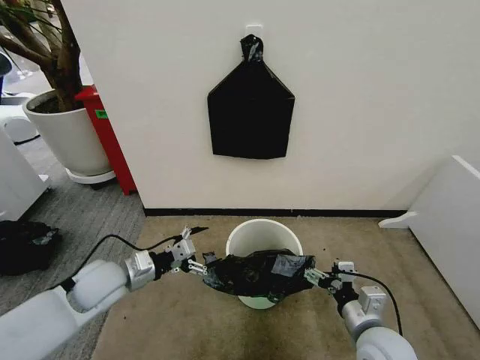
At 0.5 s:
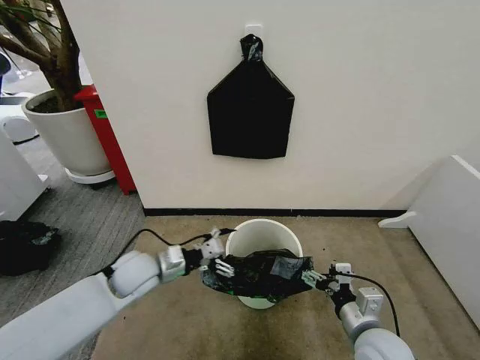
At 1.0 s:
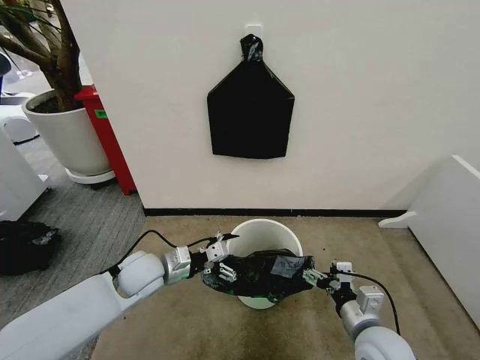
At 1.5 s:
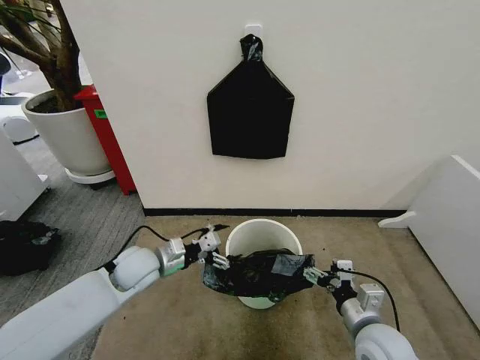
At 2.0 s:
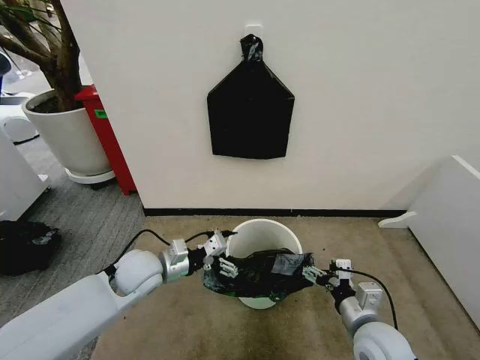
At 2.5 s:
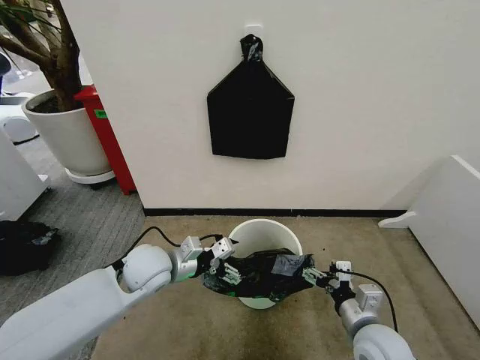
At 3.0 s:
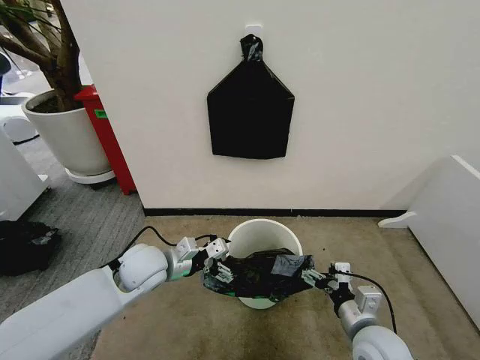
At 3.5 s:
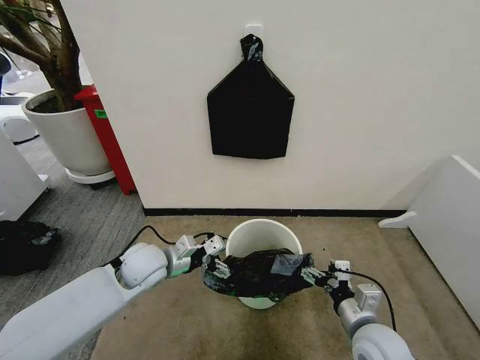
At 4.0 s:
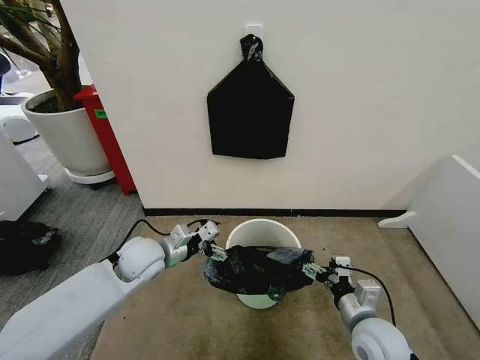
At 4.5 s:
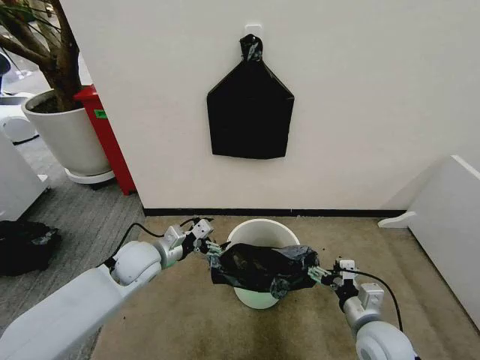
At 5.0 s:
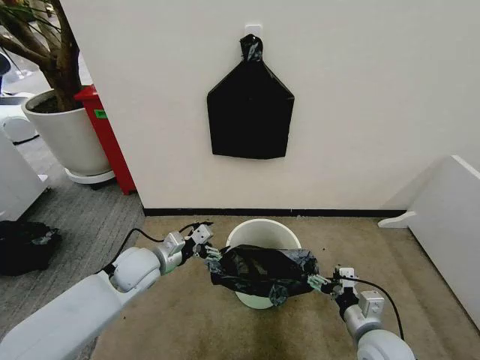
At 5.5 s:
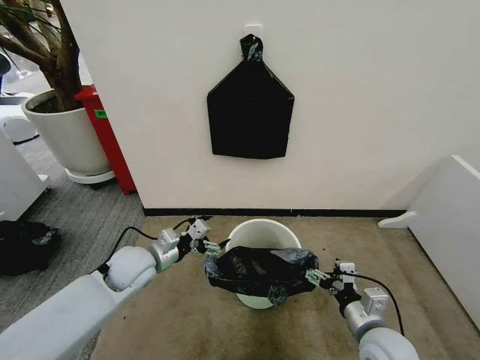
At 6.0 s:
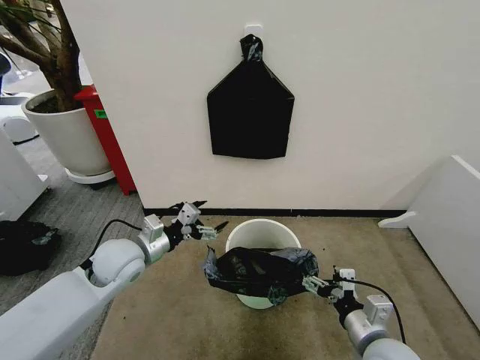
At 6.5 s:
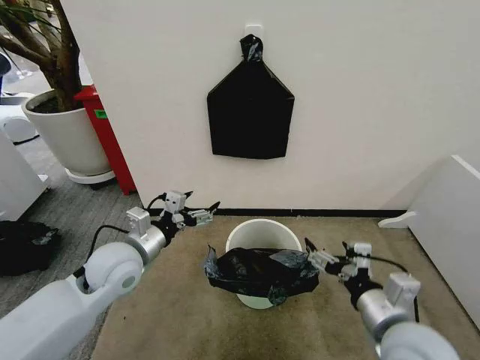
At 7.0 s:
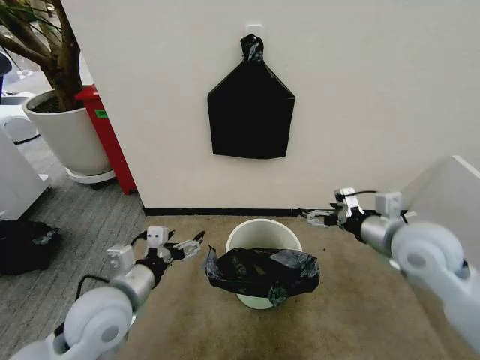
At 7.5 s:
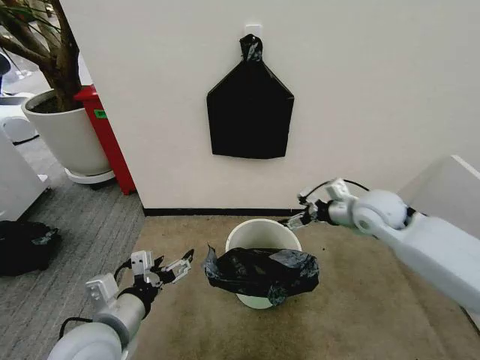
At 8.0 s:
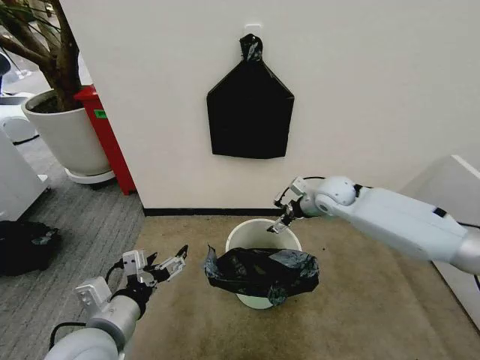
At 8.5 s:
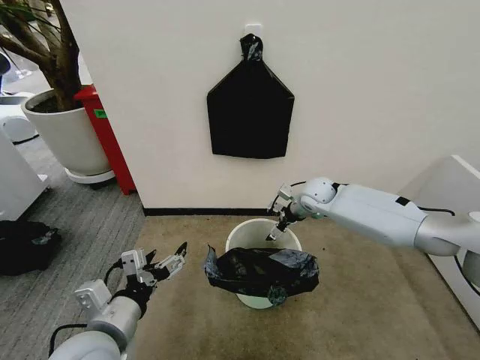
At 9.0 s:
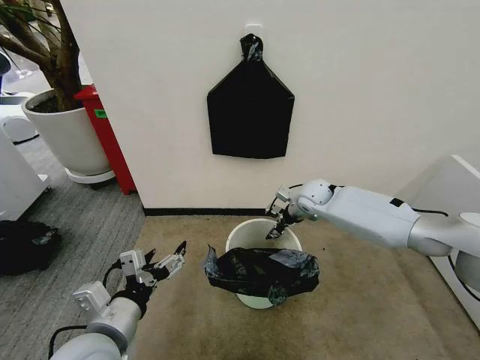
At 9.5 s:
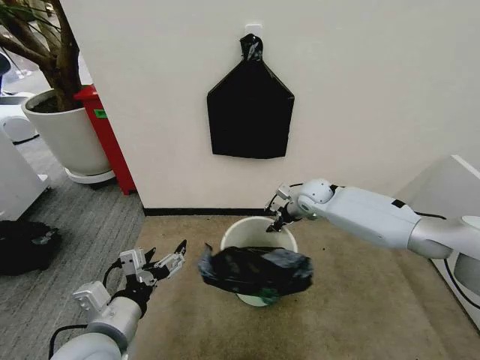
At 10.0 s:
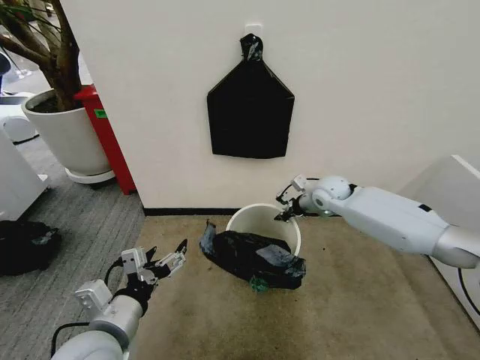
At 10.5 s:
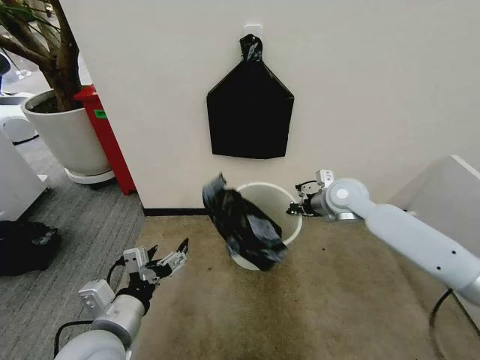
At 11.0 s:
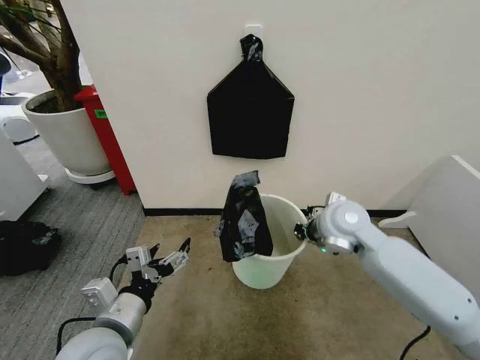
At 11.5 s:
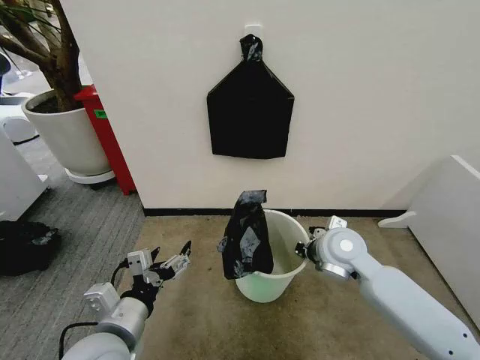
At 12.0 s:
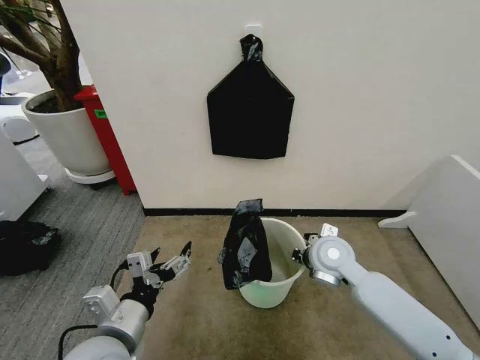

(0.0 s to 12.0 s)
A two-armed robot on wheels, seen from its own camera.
Task of the whole recording: Place the garbage bag over the trash bin.
0.0 s - 2.0 s: The left gripper goes about 5 cm to the right.
2.0 s - 4.0 s: The grippers stay close to where they were, moving slightly.
4.0 s - 6.0 s: The grippers stay close to where they were, moving slightly.
6.0 s - 8.0 s: The right gripper heads forward, covering about 35 cm. Meanwhile the left gripper heads backward, covering approximately 20 cm.
8.0 s - 10.0 s: The right gripper closes its fingers.
10.0 s - 12.0 s: The right gripper heads backward, covering about 20 cm.

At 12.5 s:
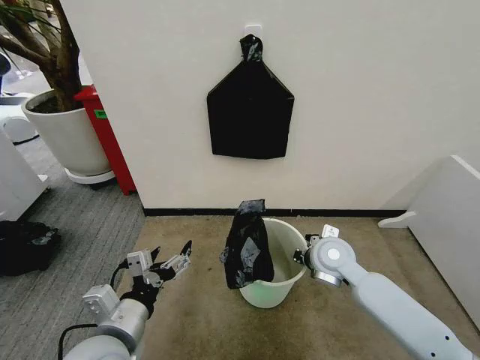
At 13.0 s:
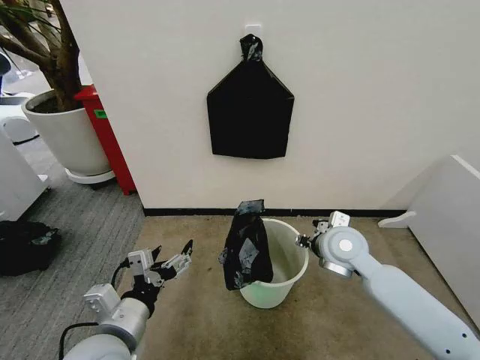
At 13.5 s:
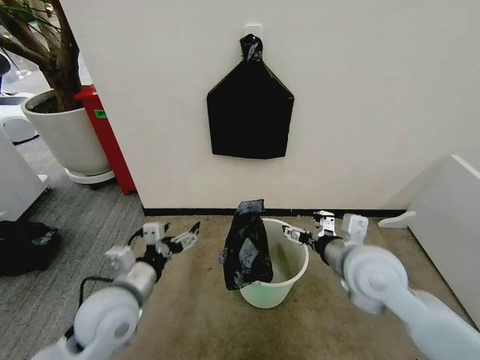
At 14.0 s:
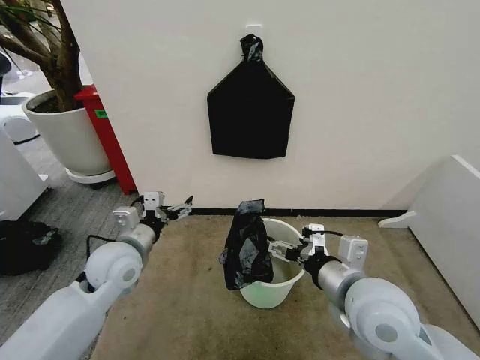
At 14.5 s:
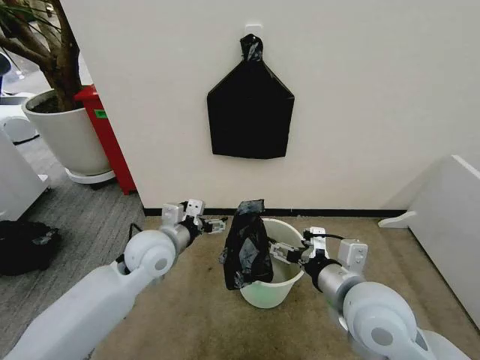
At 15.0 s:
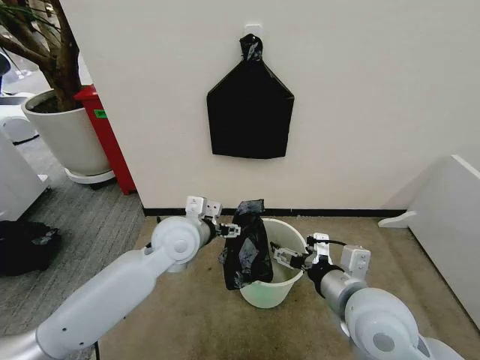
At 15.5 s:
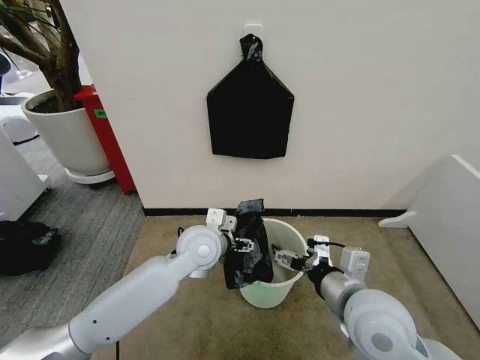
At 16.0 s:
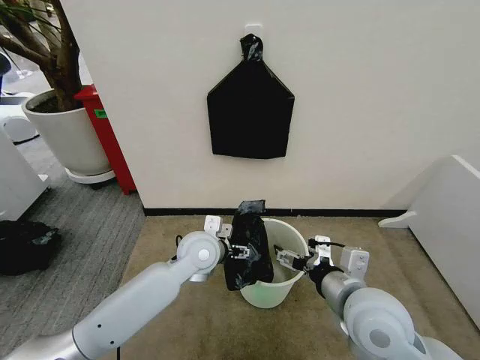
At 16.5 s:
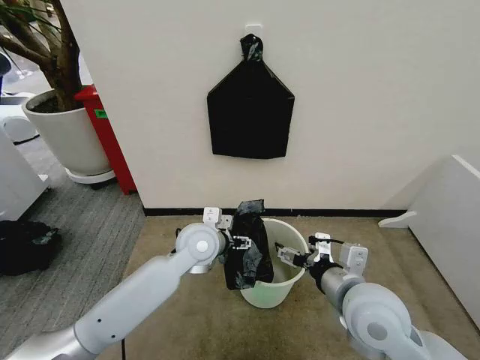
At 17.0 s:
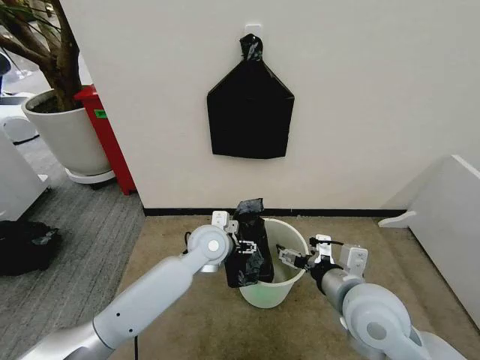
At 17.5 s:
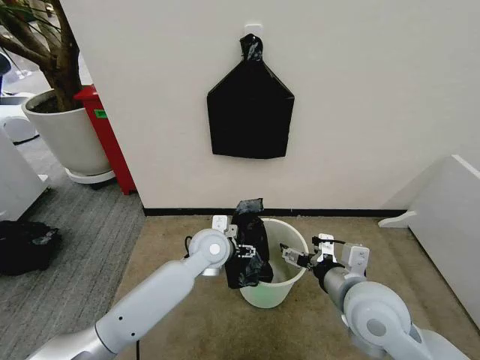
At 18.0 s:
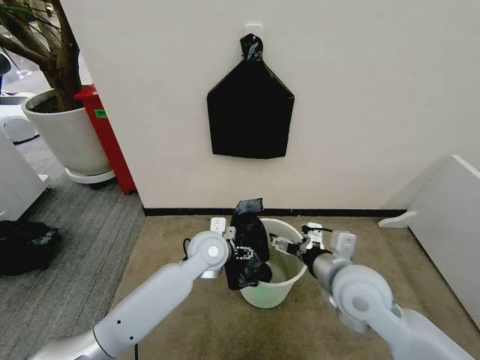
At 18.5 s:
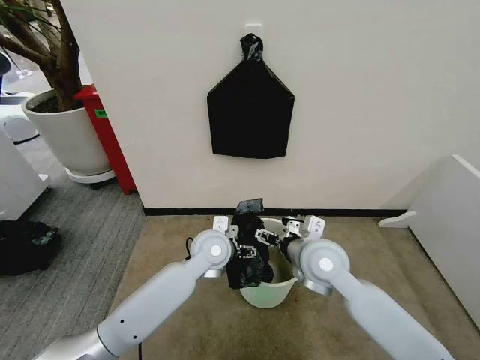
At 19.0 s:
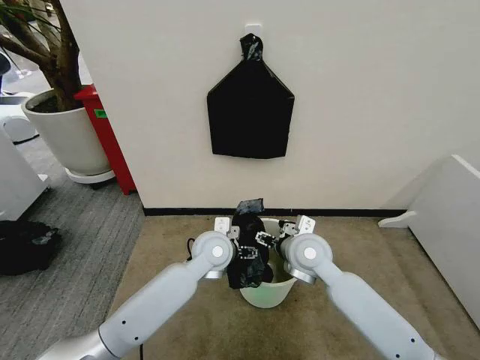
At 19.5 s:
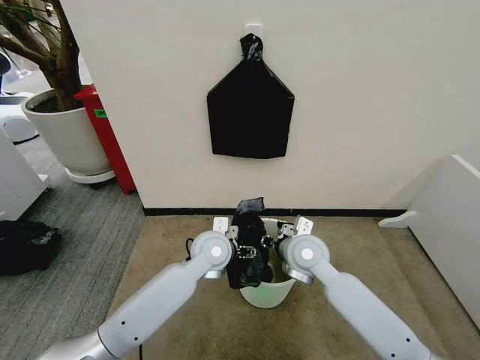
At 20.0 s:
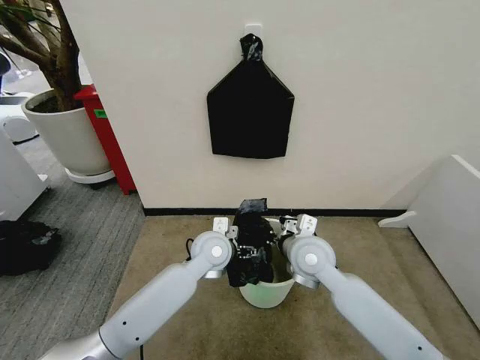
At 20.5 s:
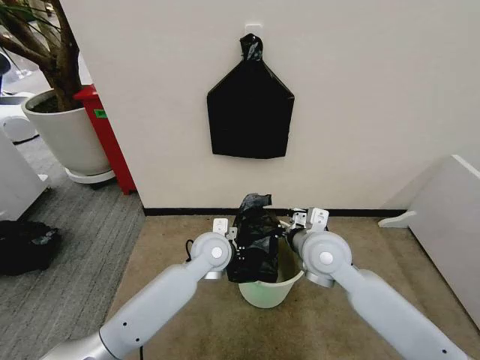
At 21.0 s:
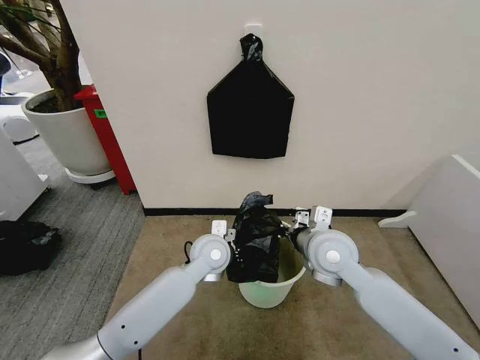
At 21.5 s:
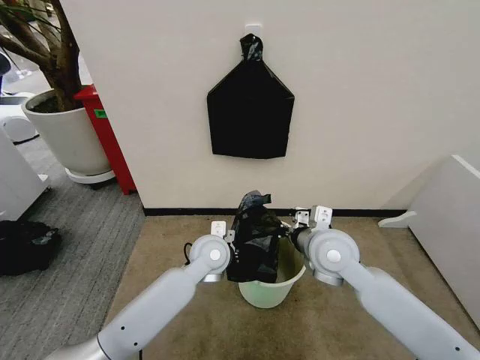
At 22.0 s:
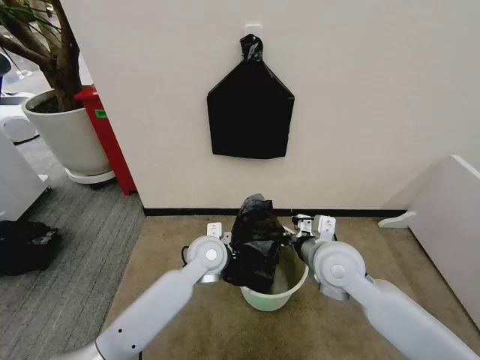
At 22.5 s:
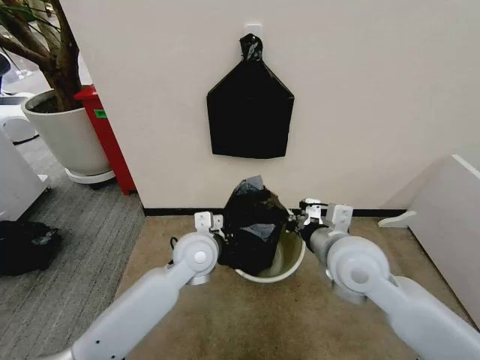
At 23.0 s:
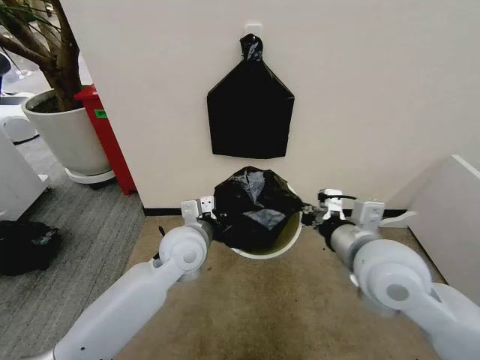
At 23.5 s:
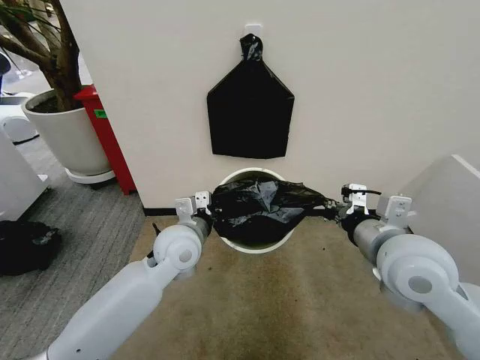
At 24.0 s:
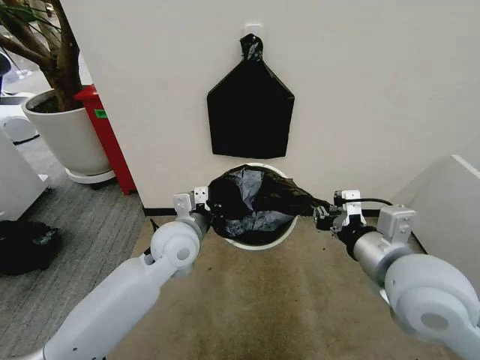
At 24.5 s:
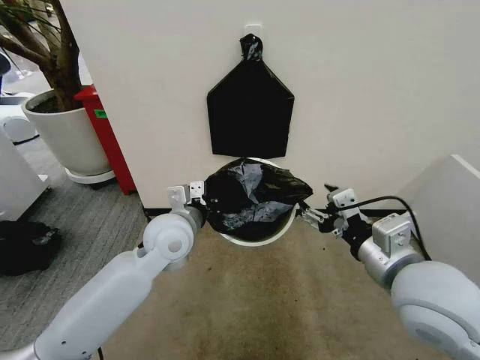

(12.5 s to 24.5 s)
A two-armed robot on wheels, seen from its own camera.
Task of the whole recording: Place the garbage bag over the trash bin.
12.5 s - 14.5 s: The left gripper heads forward, covering approximately 20 cm; the right gripper shifts some 15 cm backward and upward, and opens its fingers.
14.5 s - 16.5 s: The left gripper moves to the right, about 10 cm.
16.5 s - 18.5 s: The right gripper travels forward by roughly 10 cm.
18.5 s - 20.5 s: The right gripper closes up.
20.5 s - 22.5 s: The right gripper ends up approximately 5 cm from where it was, while the left gripper closes up.
22.5 s - 24.5 s: The right gripper shifts approximately 10 cm backward, upward and to the right, and opens, while the left gripper is displaced upward by about 5 cm.

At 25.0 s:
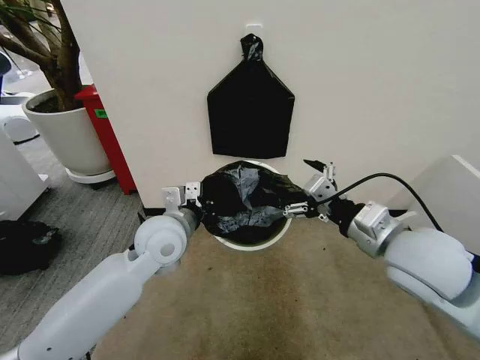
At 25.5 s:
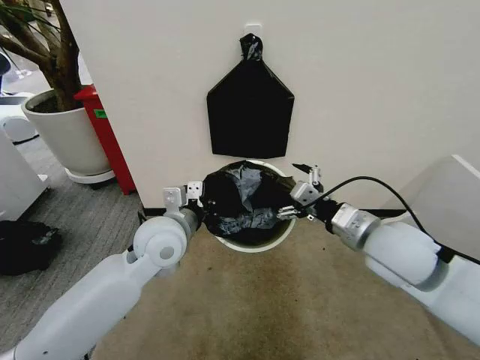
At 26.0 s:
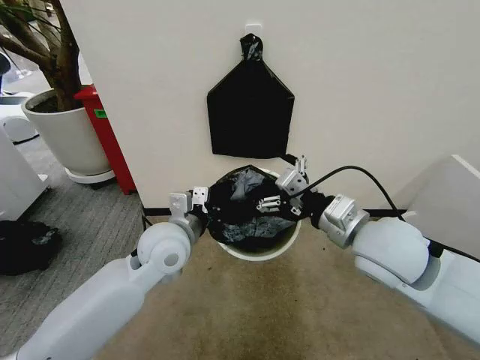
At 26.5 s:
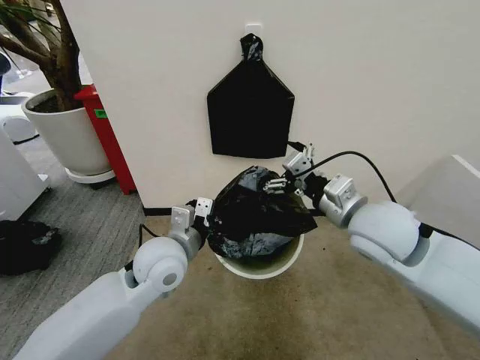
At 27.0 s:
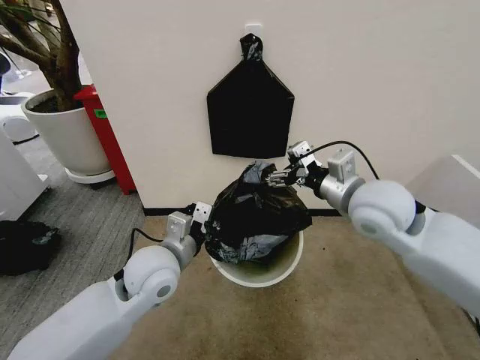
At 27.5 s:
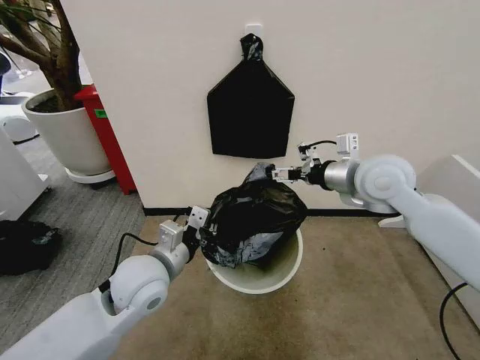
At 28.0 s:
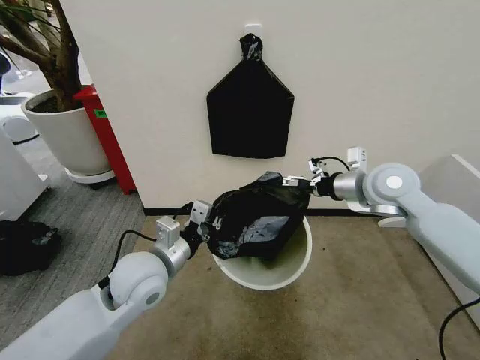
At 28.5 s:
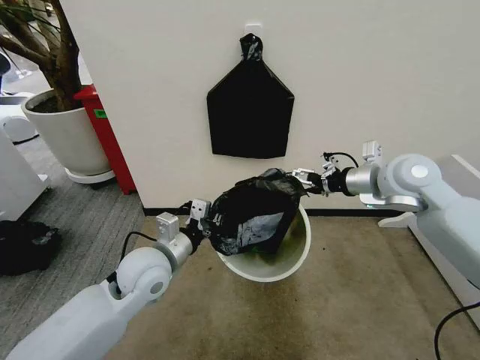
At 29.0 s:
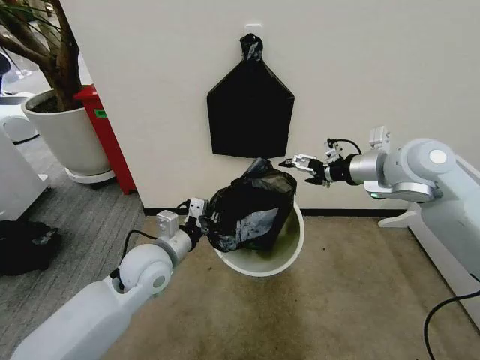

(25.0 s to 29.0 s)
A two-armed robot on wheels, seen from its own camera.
Task of the whole recording: Place the garbage bag over the trash bin.
25.0 s - 27.0 s: The left gripper goes approximately 5 cm backward. The right gripper moves forward, roughly 10 cm.
27.0 s - 29.0 s: The right gripper travels to the right and forward by some 10 cm.
